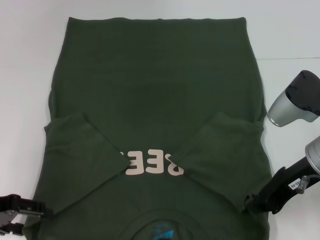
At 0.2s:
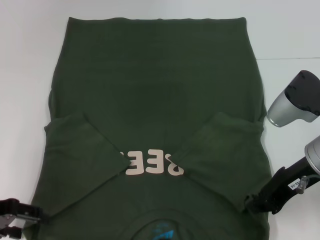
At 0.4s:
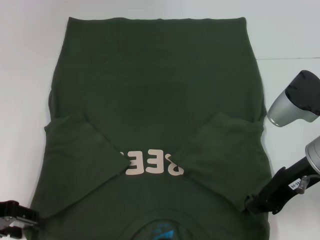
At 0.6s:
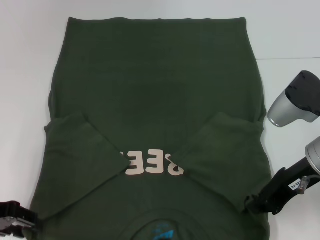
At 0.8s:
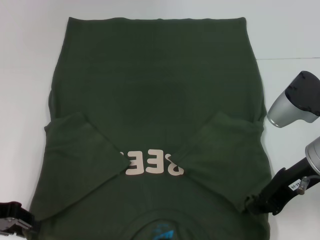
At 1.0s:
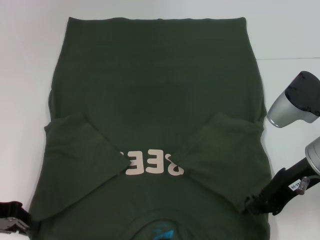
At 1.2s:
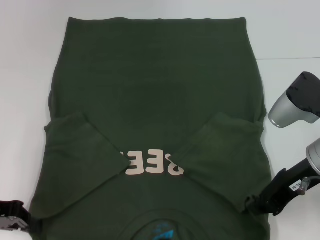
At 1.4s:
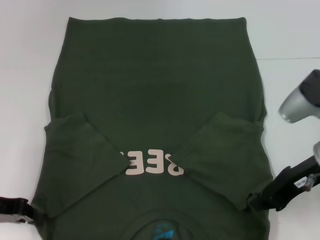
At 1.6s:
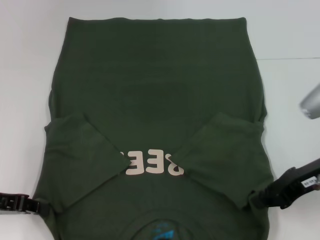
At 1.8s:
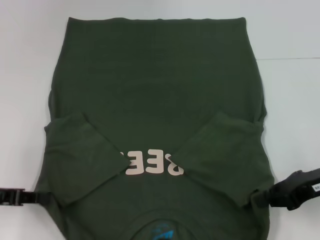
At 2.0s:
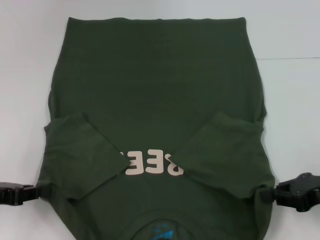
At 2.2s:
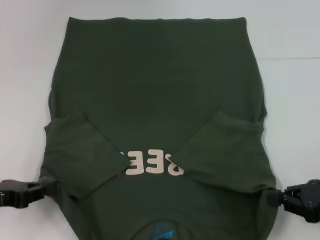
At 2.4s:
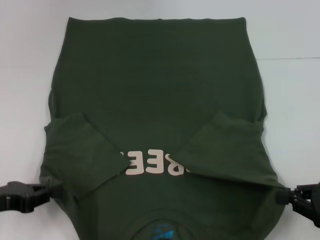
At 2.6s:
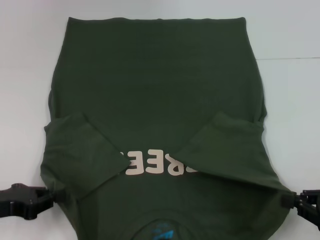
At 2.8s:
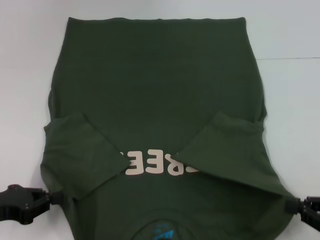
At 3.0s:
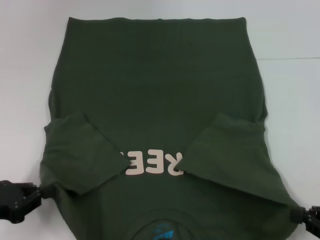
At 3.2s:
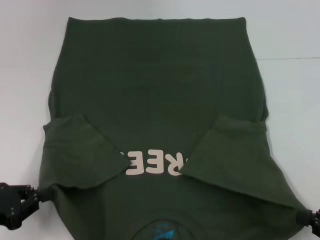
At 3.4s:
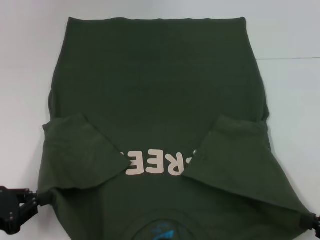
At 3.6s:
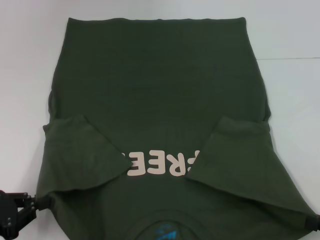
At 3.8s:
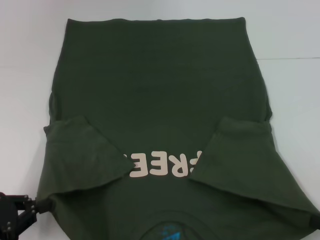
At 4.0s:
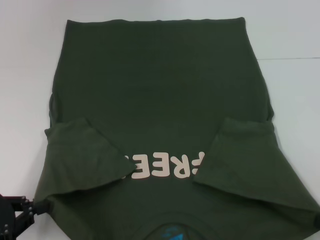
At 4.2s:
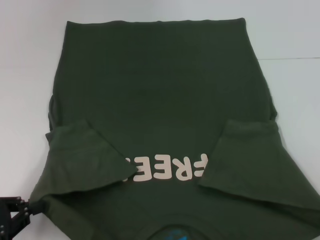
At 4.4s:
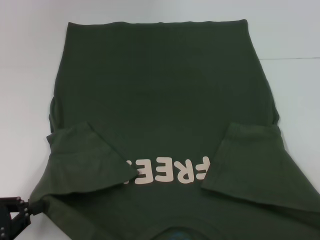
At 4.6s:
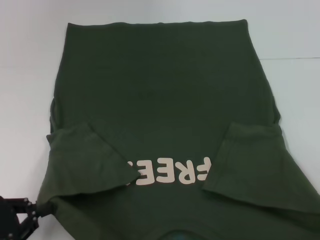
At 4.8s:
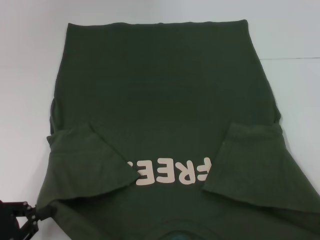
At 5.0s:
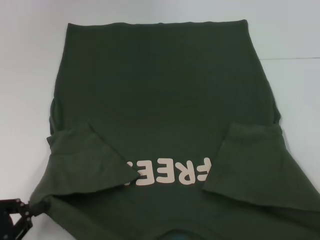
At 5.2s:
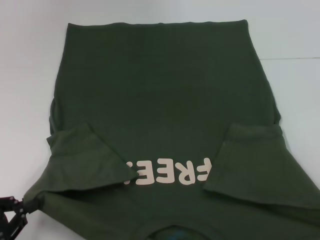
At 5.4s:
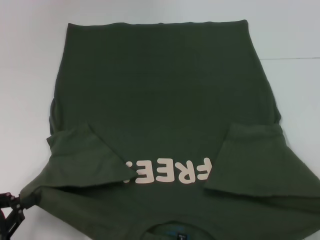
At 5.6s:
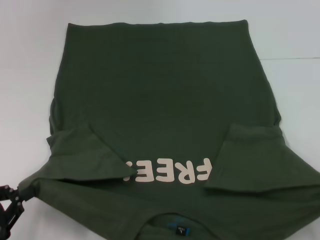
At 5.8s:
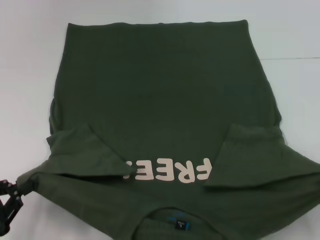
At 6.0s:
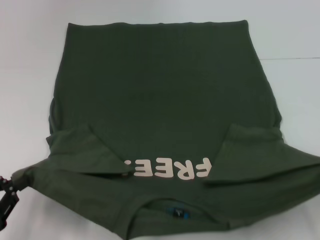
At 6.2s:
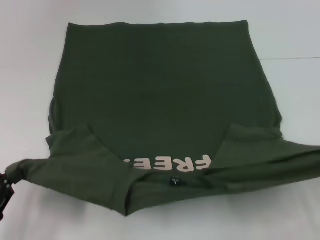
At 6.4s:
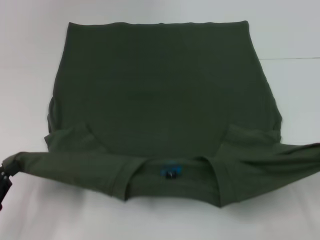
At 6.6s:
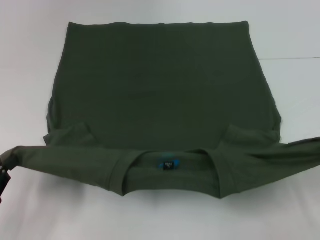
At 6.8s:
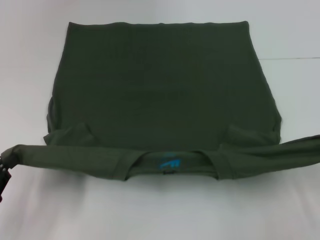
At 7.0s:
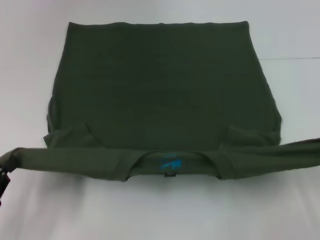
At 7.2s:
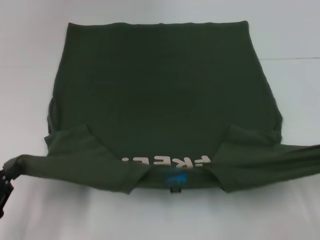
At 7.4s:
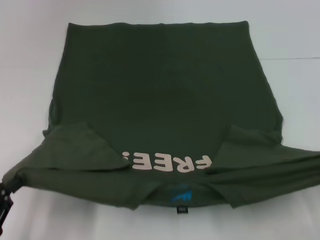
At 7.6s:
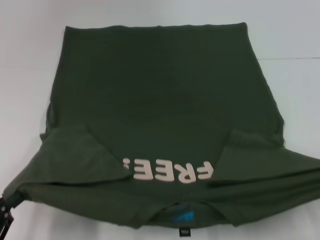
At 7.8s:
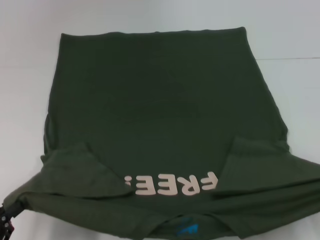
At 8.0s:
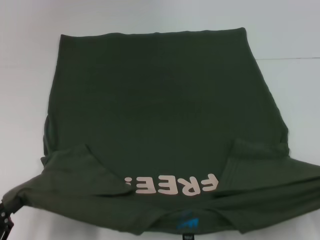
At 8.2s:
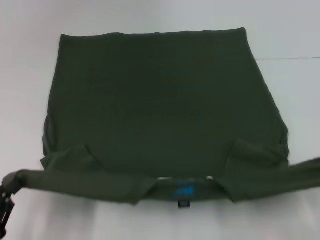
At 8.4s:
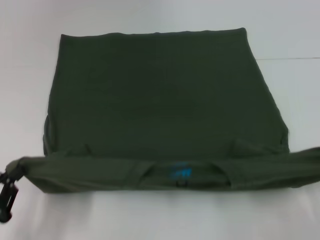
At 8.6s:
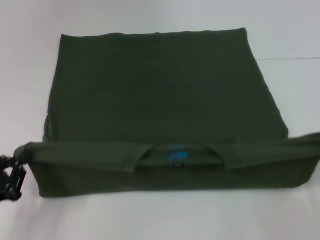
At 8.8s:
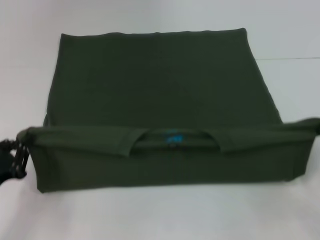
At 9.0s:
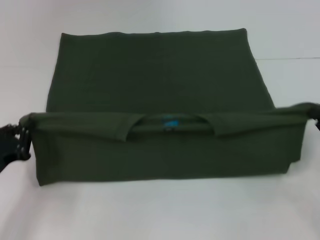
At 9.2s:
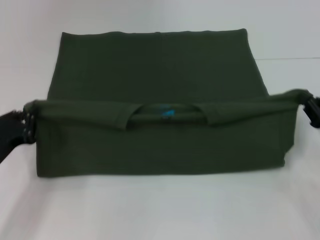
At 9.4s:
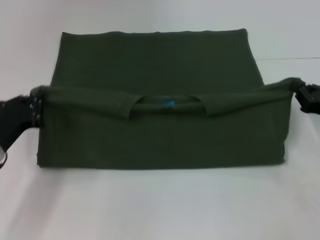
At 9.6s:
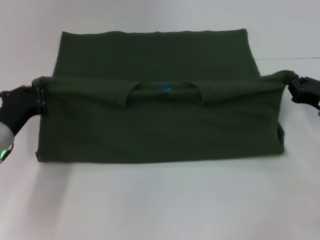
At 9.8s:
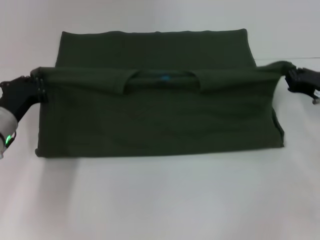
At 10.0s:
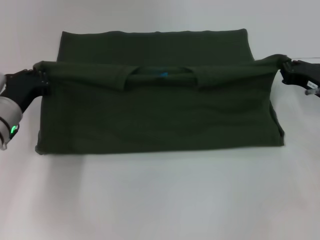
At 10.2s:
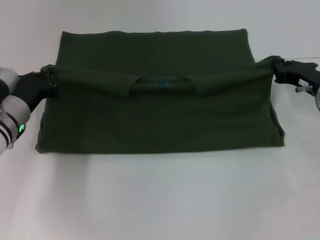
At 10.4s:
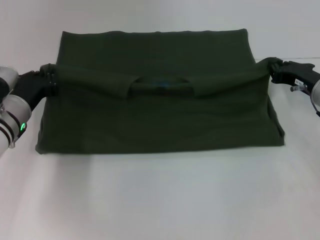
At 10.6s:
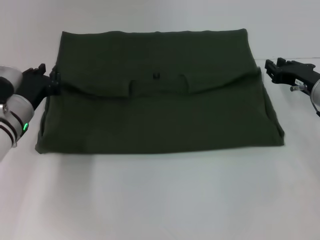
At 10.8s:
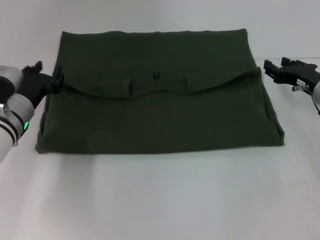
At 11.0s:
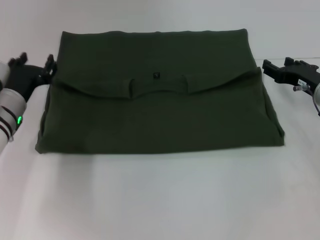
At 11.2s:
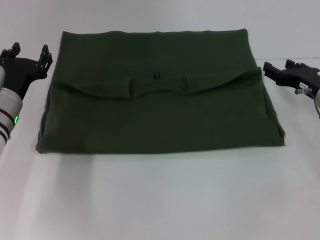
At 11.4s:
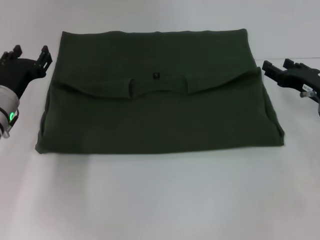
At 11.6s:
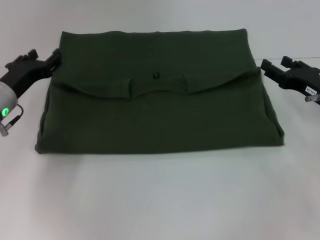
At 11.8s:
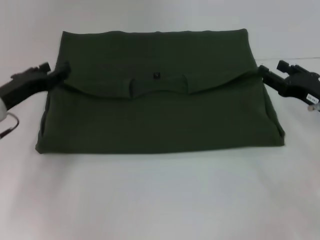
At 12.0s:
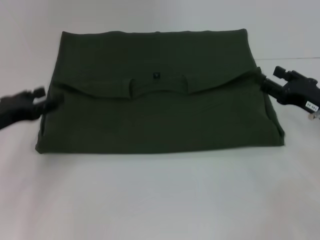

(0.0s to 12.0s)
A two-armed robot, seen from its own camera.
Step, 0.0s - 1.8s: Grab the bottom left corner with your left hand.
Step, 2.0s - 11.4s: Fold the clothes with your left hand.
Step, 2.0s - 11.4s: Fold the clothes with your right hand.
0.0s - 1.6s: The left gripper closes its fingers.
1.6s - 3.0s: The left gripper moves roughly 5 cm. Meanwhile the right gripper moves backward, to the right and downward, some 20 cm.
3.0s - 4.4s: The right gripper shifts by roughly 5 cm.
4.4s - 6.0s: The grippers stay close to where they were, moving slightly.
6.0s - 7.6s: The grippers stay close to where they were, moving slightly.
7.6s - 9.0s: Both grippers move forward, some 15 cm.
9.0s - 10.4s: The right gripper is displaced forward and to the left by some 15 cm; the left gripper heads forward and to the right, covering some 15 cm.
10.4s - 12.0s: The left gripper goes roughly 10 cm to the left and backward, and opens. The right gripper goes some 5 cm backward, and opens.

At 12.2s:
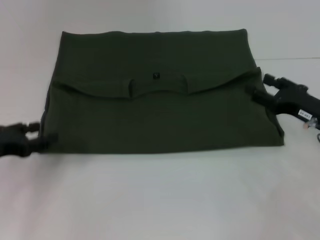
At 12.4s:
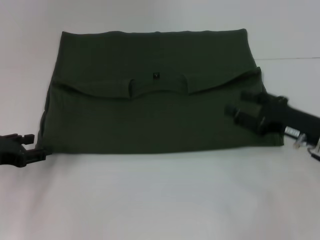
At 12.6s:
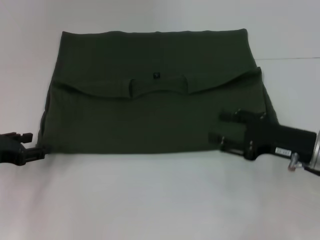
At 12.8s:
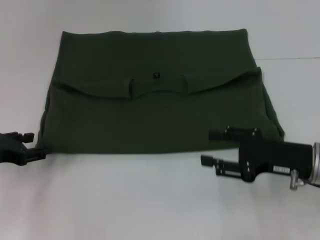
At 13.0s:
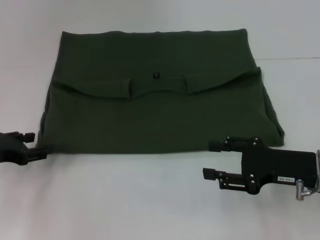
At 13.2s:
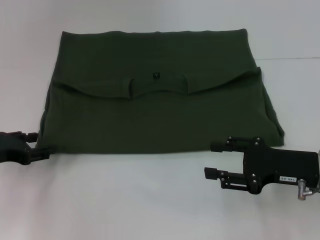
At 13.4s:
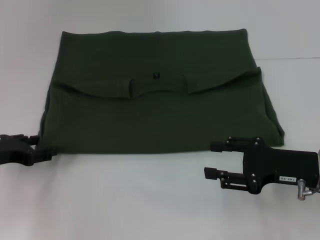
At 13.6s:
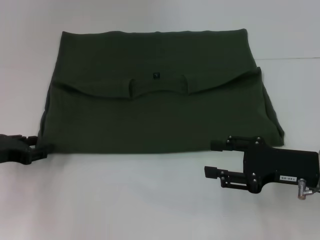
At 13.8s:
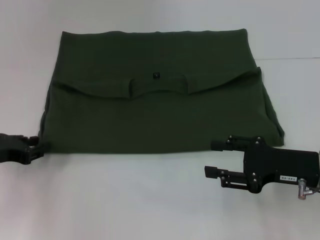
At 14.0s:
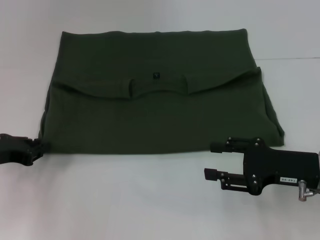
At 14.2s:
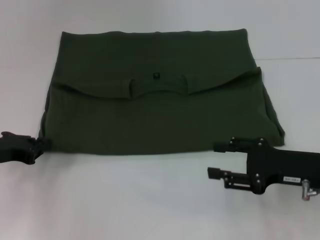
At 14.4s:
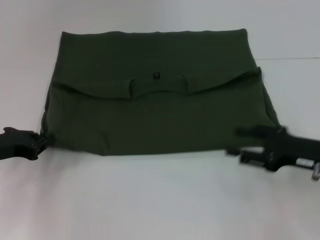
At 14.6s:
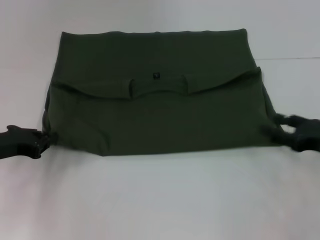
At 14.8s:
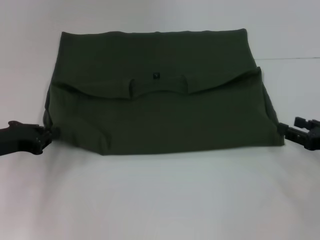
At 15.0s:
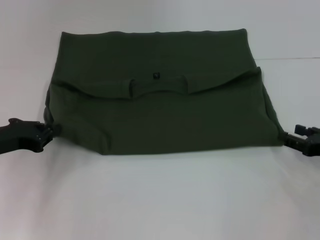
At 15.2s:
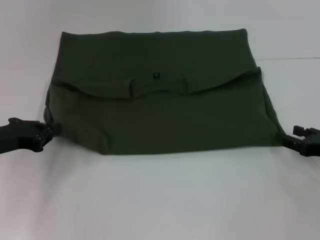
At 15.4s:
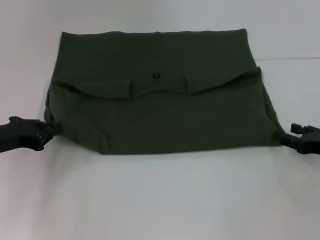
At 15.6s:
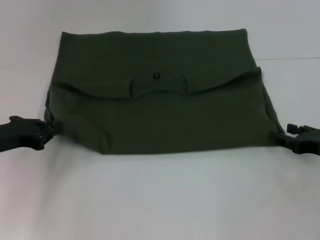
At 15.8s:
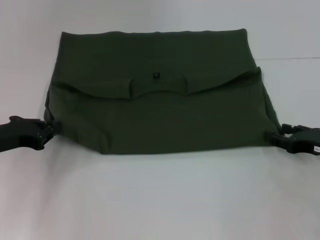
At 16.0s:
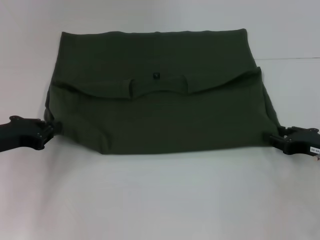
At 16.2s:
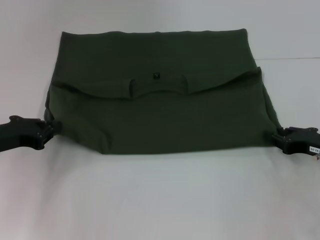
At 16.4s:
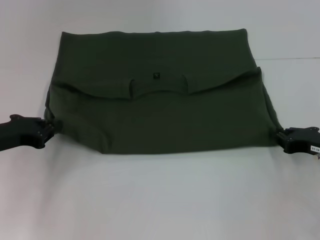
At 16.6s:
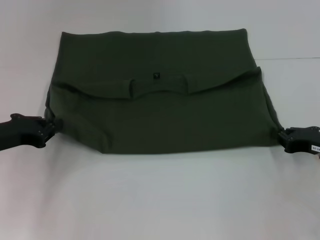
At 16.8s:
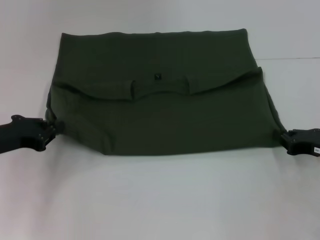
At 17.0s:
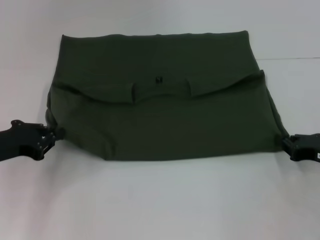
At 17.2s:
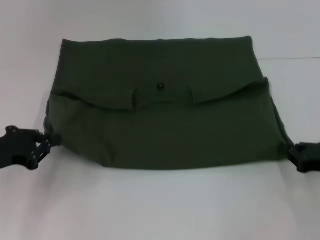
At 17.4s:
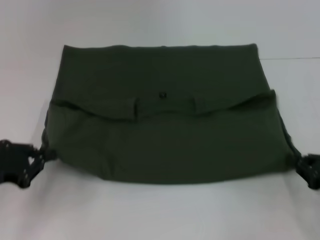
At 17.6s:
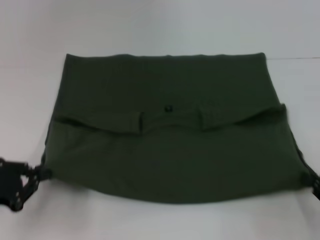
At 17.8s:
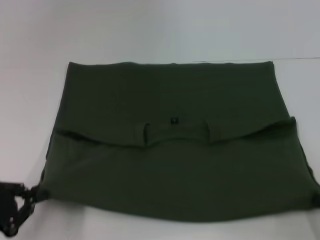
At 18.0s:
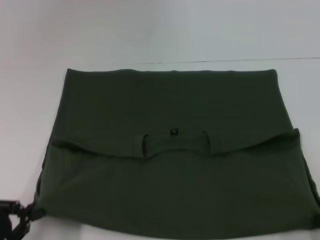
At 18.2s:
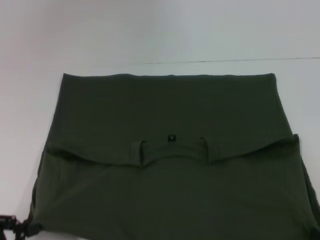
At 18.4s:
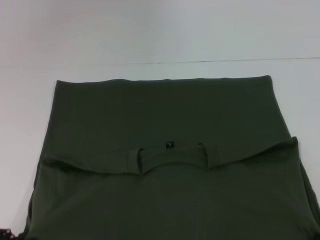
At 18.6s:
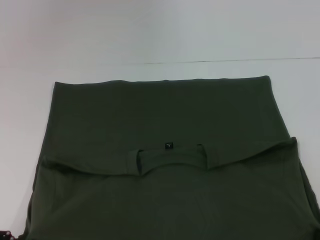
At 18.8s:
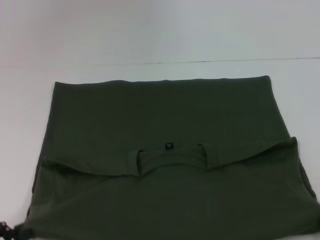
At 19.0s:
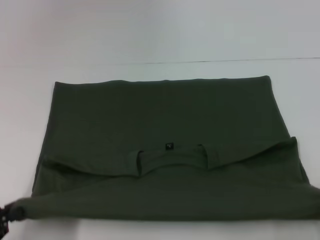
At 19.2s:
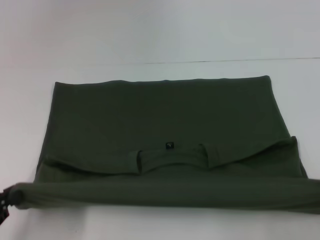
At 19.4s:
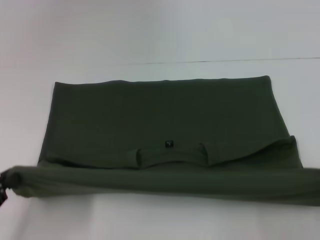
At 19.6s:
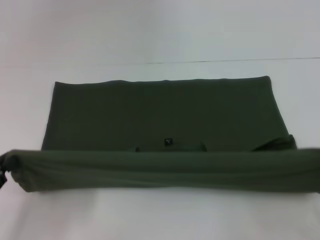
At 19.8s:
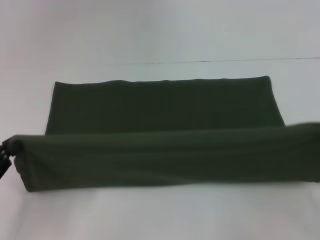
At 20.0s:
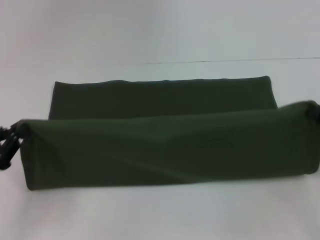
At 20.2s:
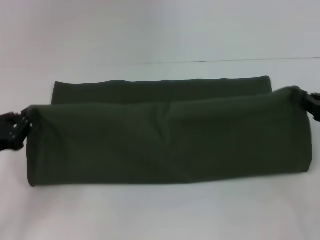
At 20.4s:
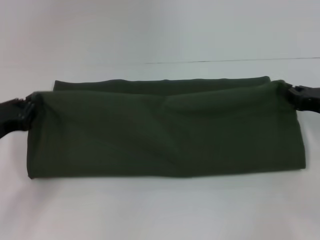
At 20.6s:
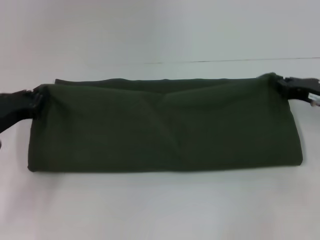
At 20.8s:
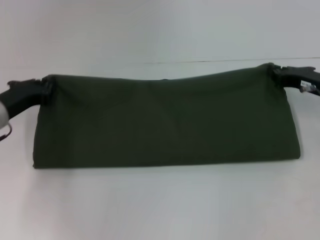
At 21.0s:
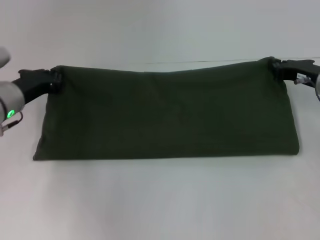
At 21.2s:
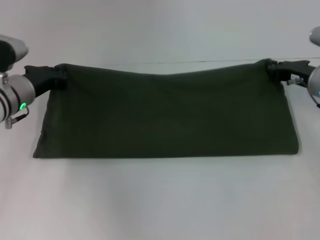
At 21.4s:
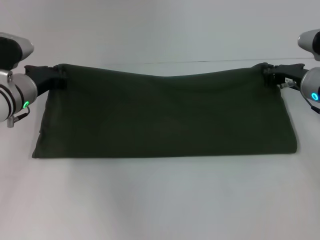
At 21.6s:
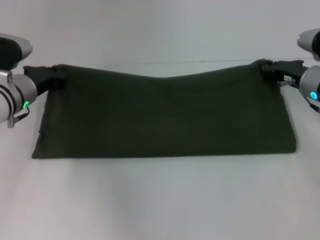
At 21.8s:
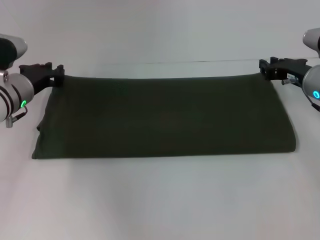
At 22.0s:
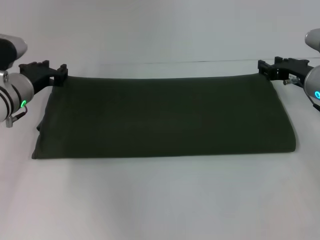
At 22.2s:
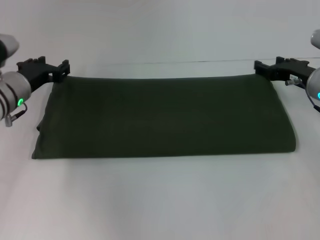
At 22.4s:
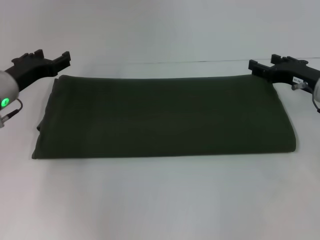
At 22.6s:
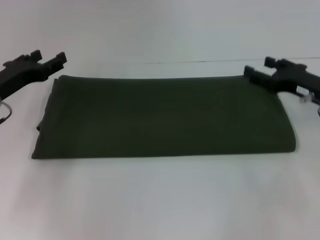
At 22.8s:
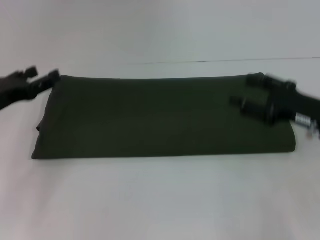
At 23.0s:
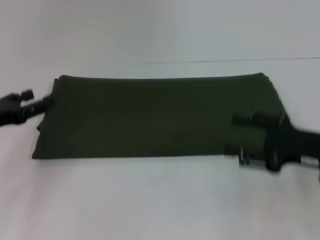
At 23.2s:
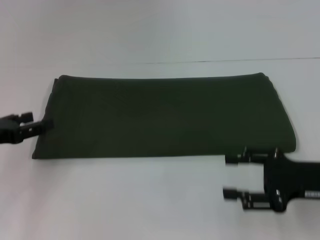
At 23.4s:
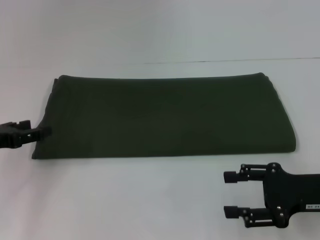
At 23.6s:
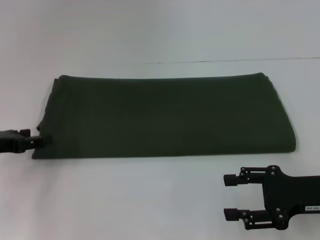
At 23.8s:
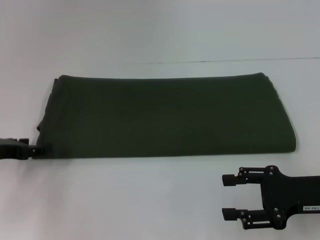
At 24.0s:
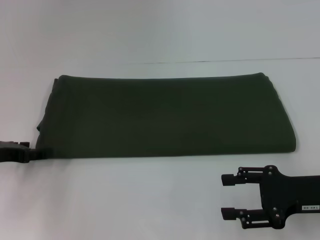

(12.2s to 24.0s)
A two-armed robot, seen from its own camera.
Step, 12.2s - 18.2s: Pull the clothes with your left hand.
Step, 12.2s - 18.2s: Pull the clothes with your right hand.
Step, 18.4s - 22.6s: Fold the clothes with your right hand.
12.2s - 13.6s: The right gripper is displaced backward by about 5 cm.
13.6s - 15.2s: The right gripper travels to the right by approximately 10 cm, while the left gripper closes up.
15.2s - 16.6s: The right gripper closes.
16.6s - 18.2s: Both grippers travel together backward, approximately 20 cm.
18.2s - 19.6s: The right gripper goes approximately 10 cm forward and upward.
19.6s - 21.0s: The left gripper heads forward and to the right, covering approximately 25 cm; the right gripper heads forward and to the left, covering roughly 25 cm.
21.0s - 22.6s: The left gripper opens its fingers. The right gripper opens up.
22.6s - 24.0s: The right gripper is displaced backward by roughly 10 cm. Meanwhile the left gripper moves backward, approximately 5 cm.
